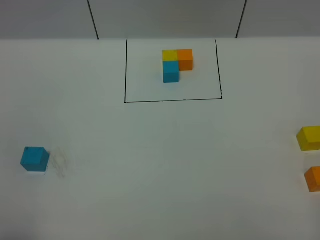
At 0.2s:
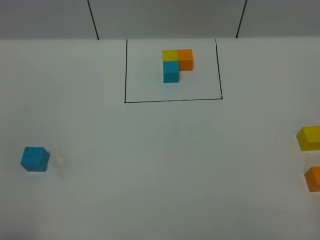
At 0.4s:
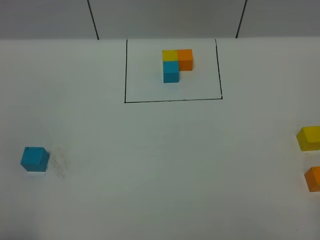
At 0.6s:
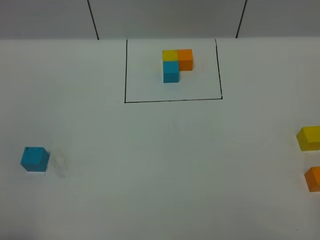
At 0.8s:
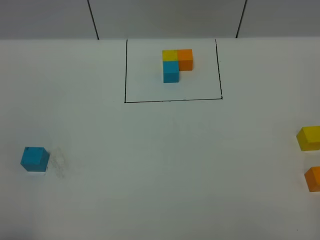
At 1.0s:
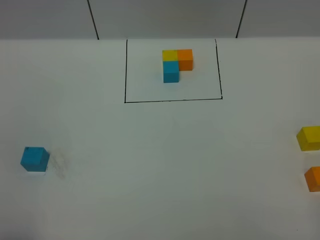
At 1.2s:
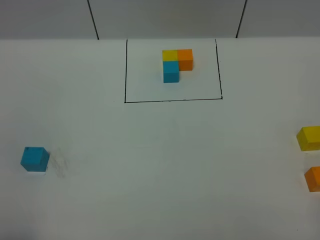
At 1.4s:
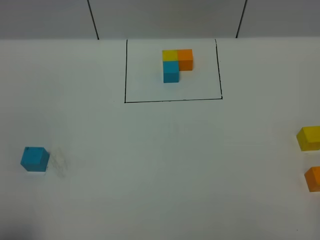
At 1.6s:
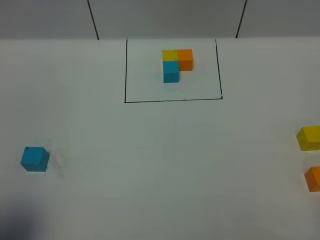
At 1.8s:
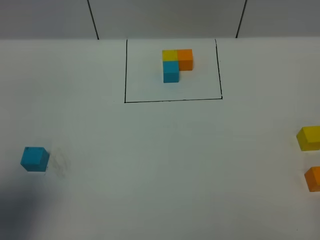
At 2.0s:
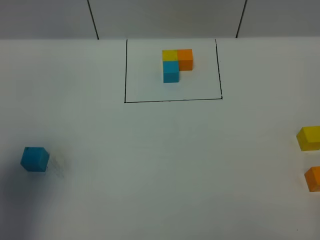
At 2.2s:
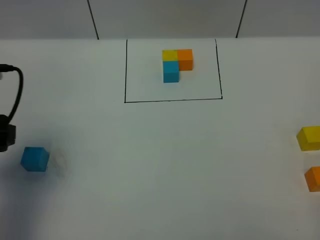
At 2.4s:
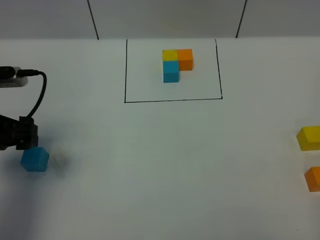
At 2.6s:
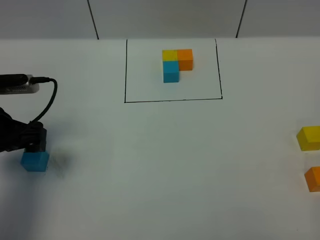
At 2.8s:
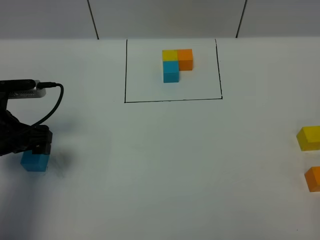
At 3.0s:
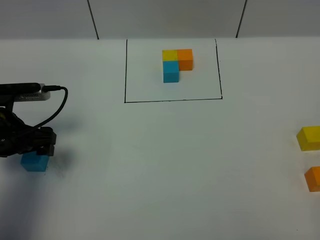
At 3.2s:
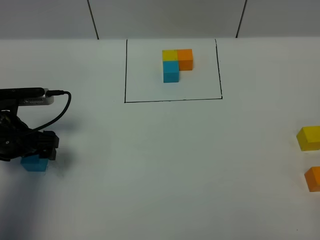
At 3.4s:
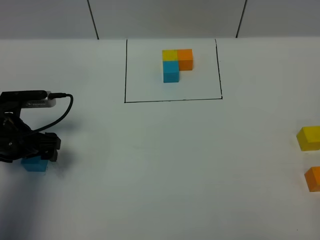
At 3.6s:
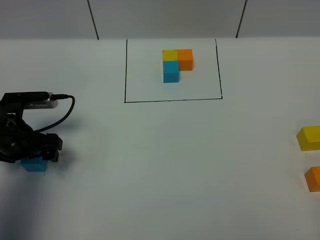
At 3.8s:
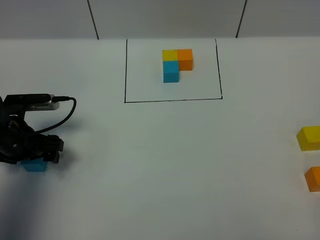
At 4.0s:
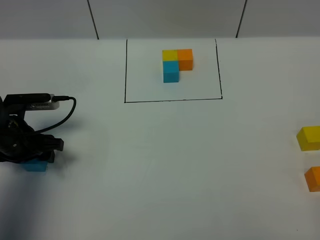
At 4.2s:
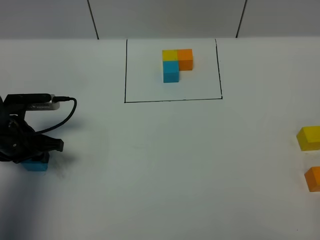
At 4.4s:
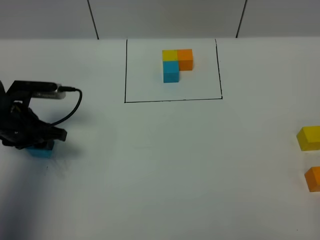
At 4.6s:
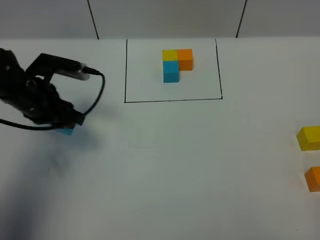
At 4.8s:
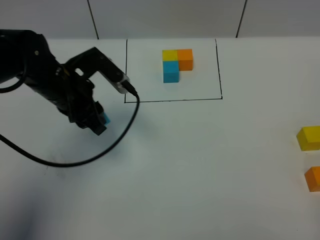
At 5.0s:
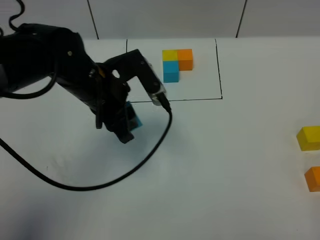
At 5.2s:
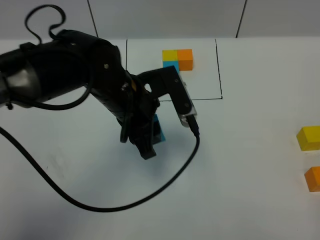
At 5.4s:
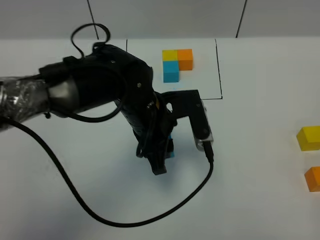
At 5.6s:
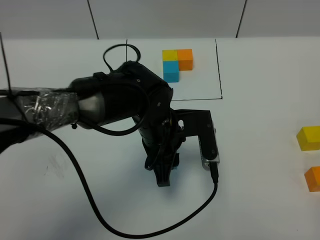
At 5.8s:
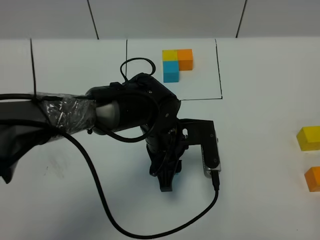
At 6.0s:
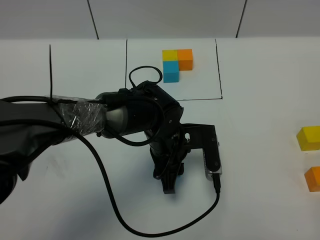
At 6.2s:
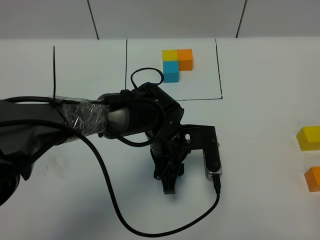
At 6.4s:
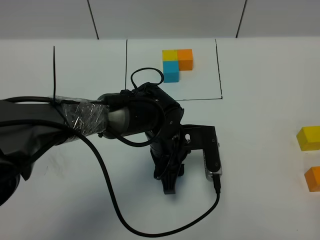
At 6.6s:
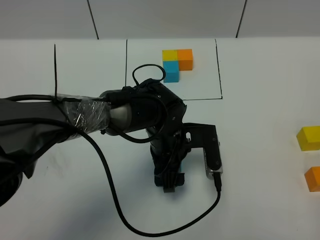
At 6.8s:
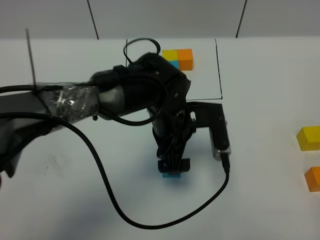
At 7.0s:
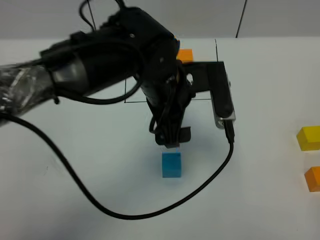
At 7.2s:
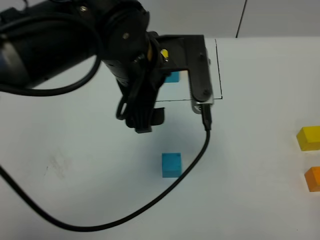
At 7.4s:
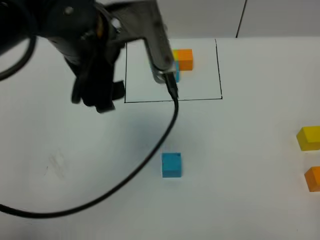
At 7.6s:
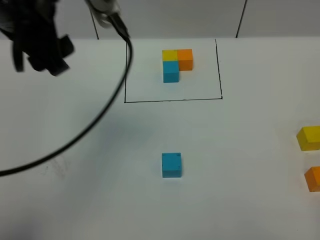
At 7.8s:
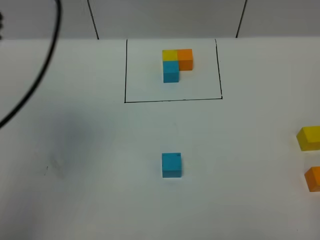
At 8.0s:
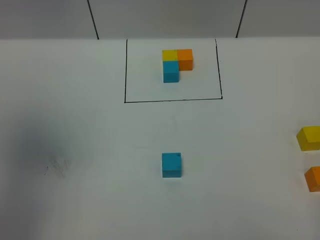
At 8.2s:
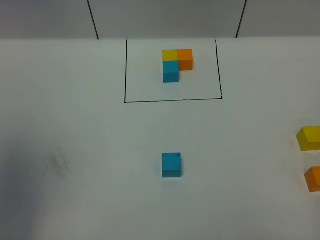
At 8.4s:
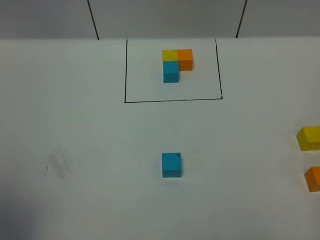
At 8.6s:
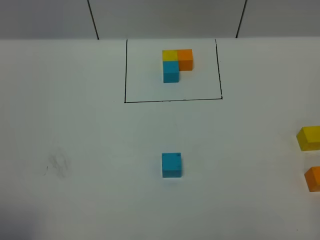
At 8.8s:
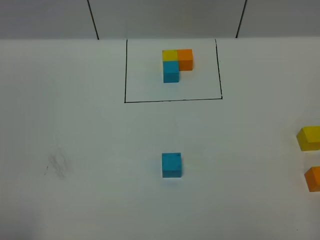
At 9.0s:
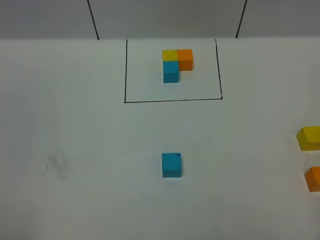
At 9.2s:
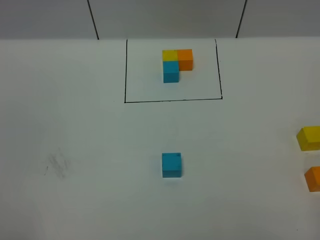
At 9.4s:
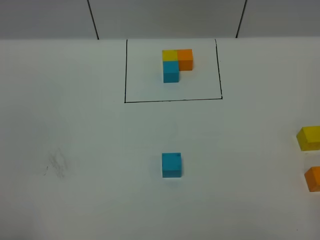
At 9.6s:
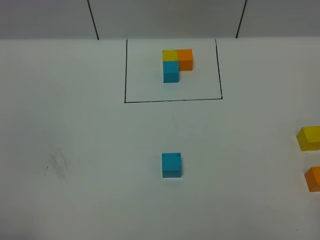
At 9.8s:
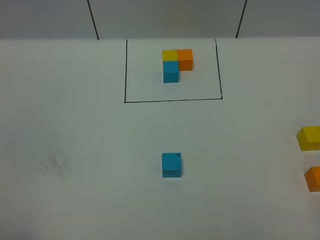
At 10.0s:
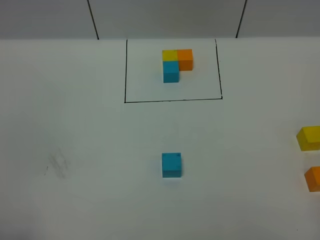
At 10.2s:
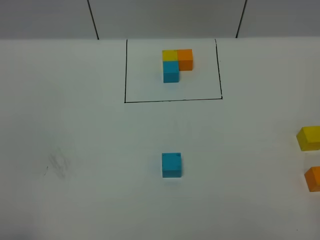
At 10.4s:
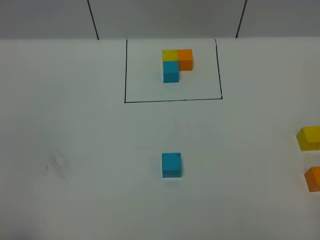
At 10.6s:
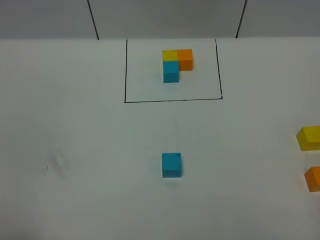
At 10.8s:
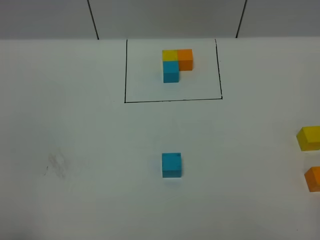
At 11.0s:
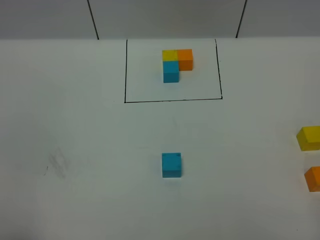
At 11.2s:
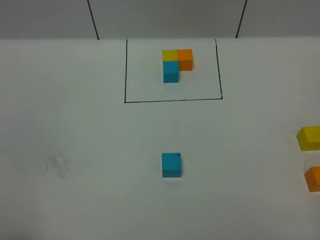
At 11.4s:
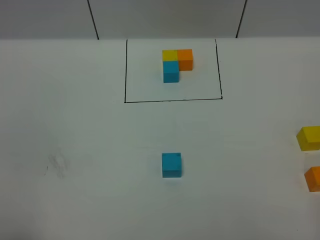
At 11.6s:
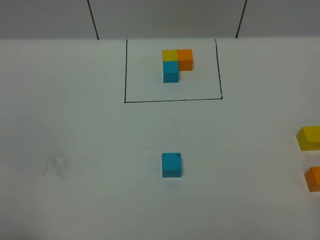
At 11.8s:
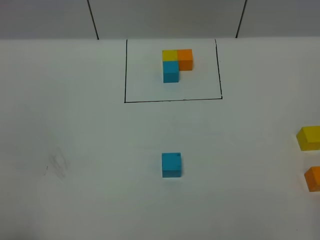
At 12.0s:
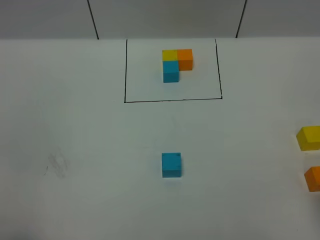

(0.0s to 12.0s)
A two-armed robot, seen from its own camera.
Task of the whole recording: According to the building block template in front, assemble the scattered blocks together.
Step, 2.2s - 7.2s: Put the blue cube in the center of the table.
0.0s - 1.6s: The left gripper goes roughly 5 cm forward.
1.6s - 3.0s: The left gripper shifts about 25 cm forward and downward.
3.0s - 4.4s: The left gripper closes.
4.4s - 6.0s: The left gripper heads to the right, covering some 25 cm.
6.0s - 7.6s: The left gripper moves upward and to the left, roughly 35 cm, and opens up.
7.6s - 9.0s: The left gripper heads backward and to the left, covering approximately 35 cm.

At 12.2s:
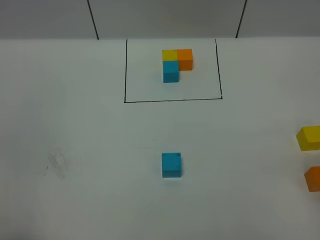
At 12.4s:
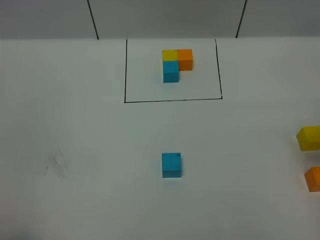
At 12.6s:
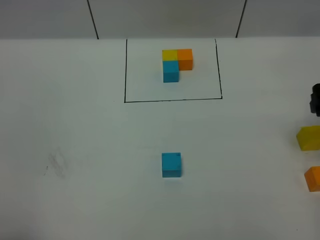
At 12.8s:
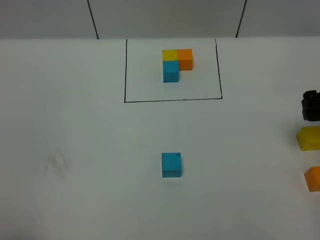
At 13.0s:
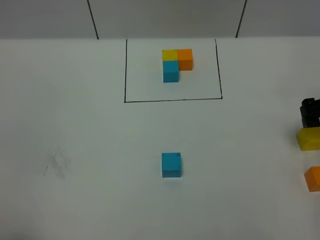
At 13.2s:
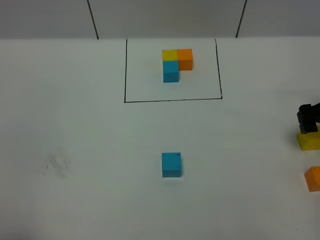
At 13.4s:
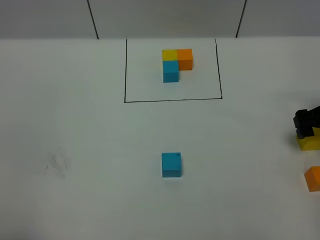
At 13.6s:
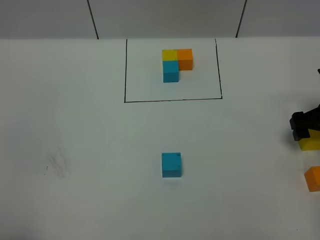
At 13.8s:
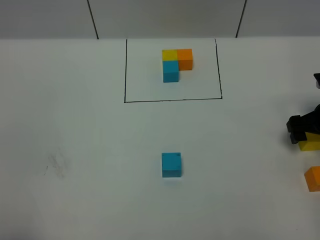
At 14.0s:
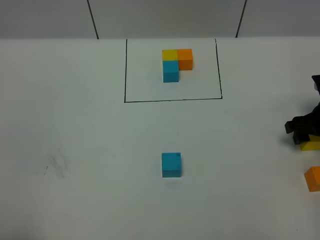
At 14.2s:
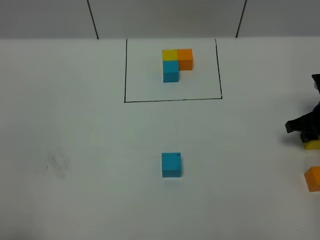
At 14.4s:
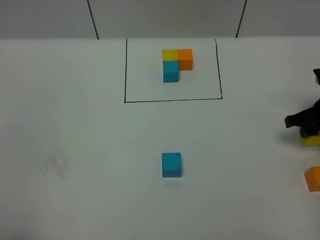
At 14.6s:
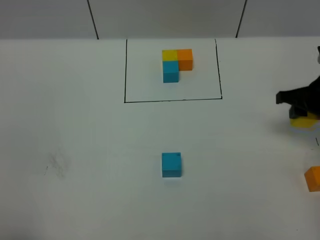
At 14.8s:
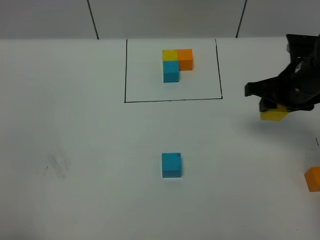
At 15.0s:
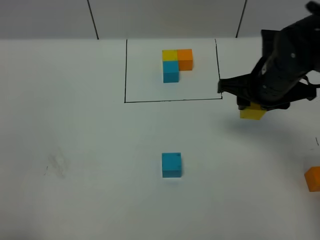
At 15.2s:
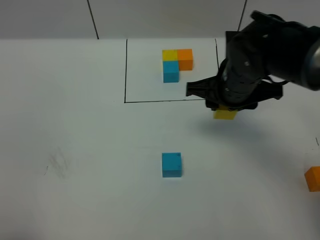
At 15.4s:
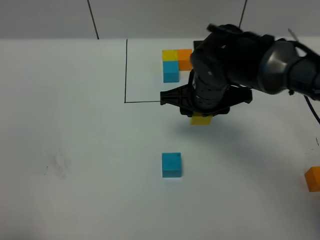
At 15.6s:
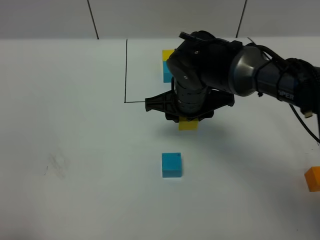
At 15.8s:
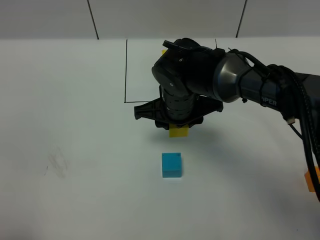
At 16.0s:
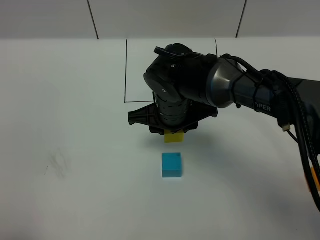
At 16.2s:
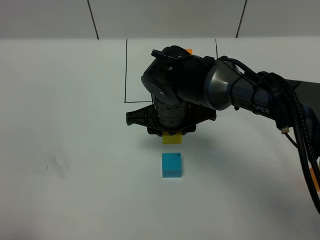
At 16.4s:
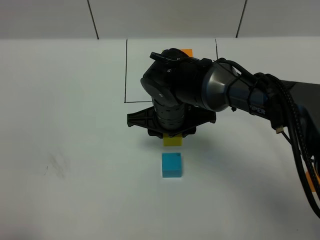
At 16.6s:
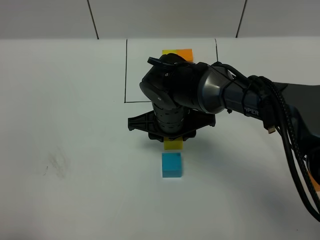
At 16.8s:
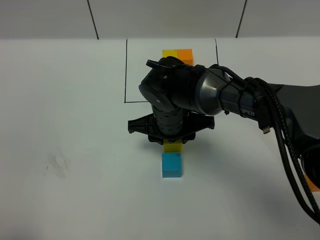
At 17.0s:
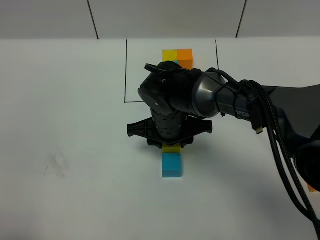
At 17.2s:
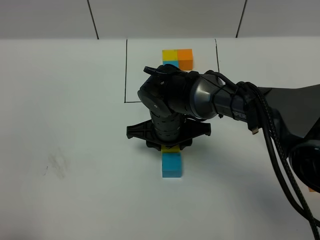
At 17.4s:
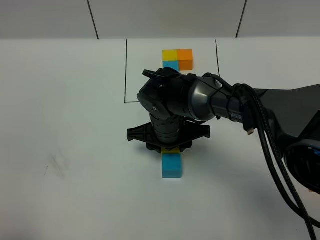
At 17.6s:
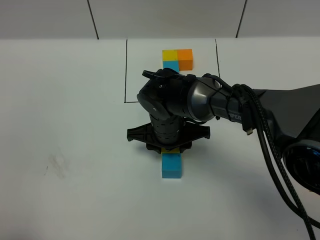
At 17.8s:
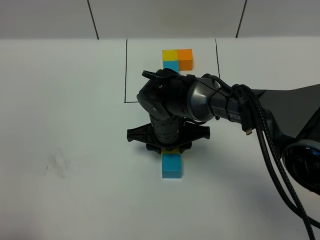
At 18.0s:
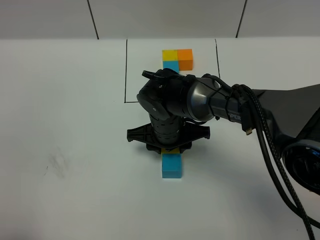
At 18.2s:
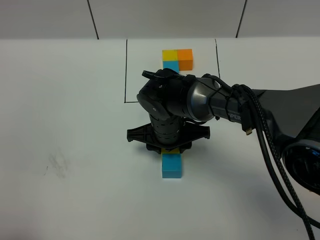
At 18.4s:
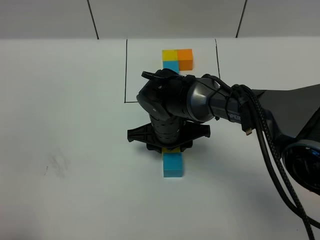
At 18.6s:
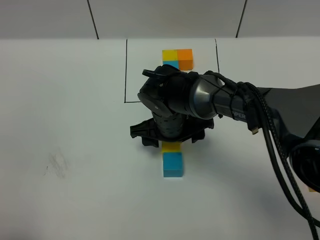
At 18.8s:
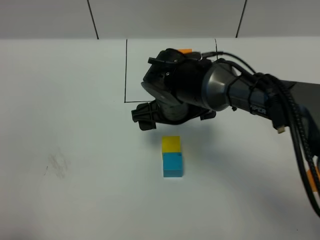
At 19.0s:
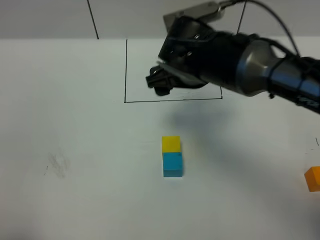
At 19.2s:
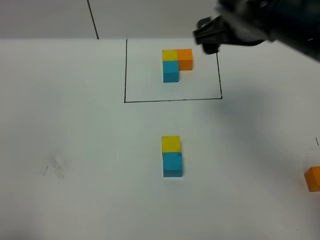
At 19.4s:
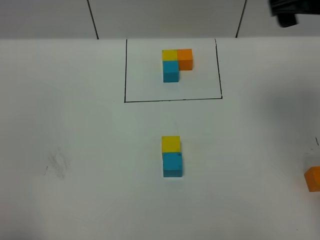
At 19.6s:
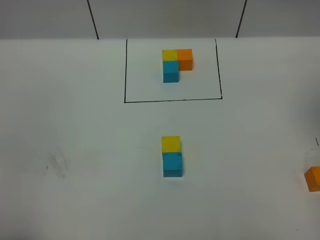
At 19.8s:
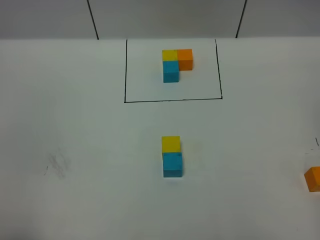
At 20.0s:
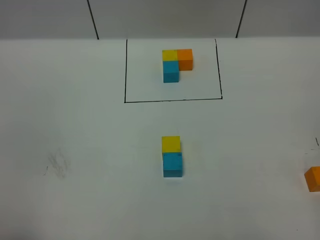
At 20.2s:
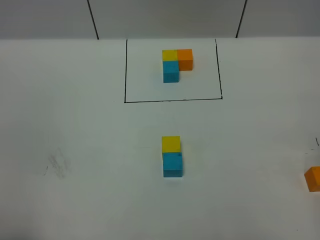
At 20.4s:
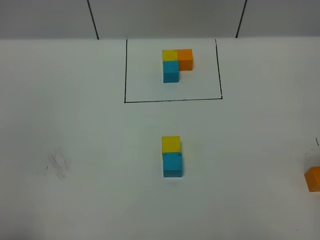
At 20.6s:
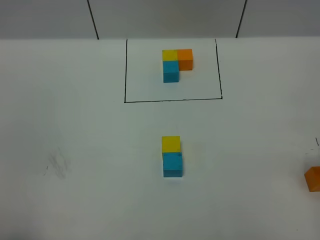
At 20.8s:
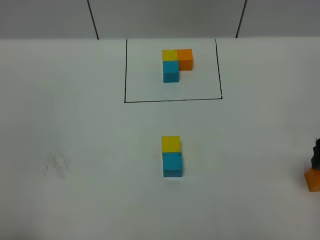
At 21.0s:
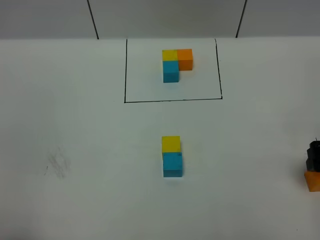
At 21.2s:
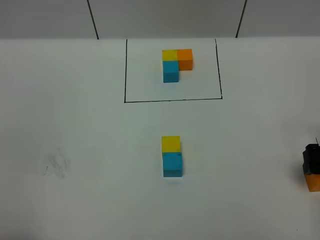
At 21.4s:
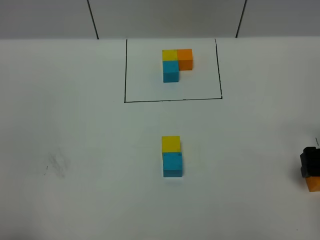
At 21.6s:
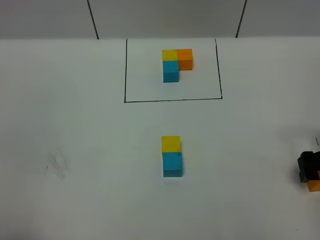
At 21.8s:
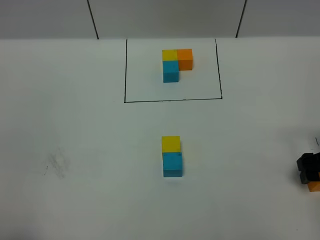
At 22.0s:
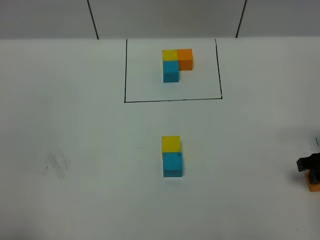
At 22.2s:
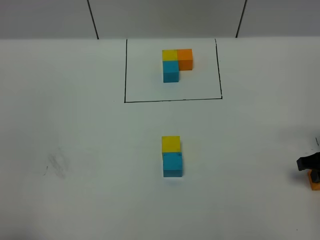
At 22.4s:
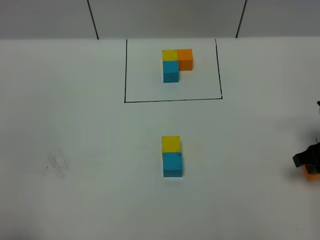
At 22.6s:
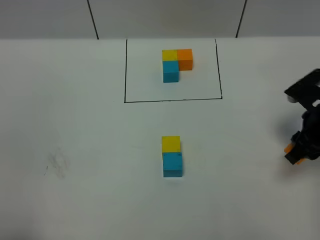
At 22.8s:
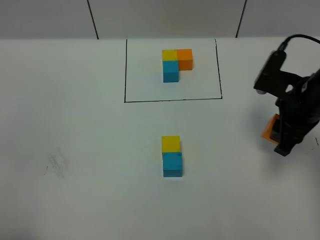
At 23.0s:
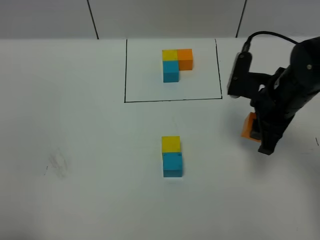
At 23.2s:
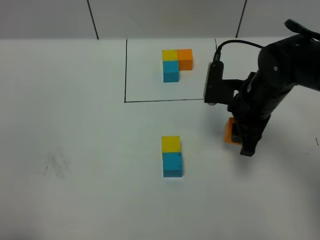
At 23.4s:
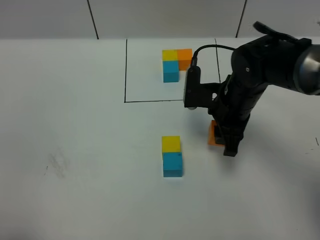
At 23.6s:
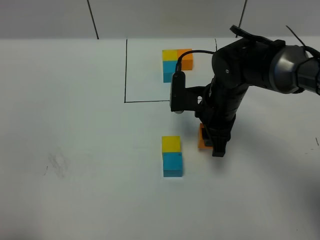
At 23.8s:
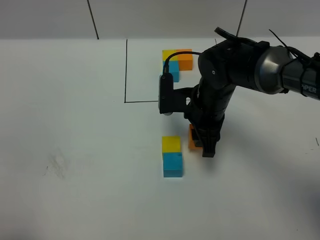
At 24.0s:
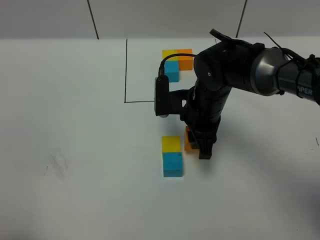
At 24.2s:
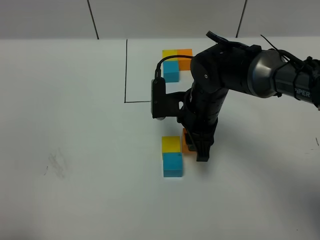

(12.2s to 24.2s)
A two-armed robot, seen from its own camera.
Task of the whole recording: According to the building block template in front, assemble the scattered blocks together.
Step, 12.2s - 19.0s: Put the yellow cube in the front of the blue cube.
12.2s - 13.8s: The right gripper shifts roughly 25 cm downward and forward.
13.8s - 15.2s: The right gripper is displaced to the left and upward by approximately 25 cm, and closes up.
15.2s - 16.6s: The right gripper shifts about 10 cm to the left and downward.
16.6s - 18.2s: The grippers make only small movements.
18.2s - 19.8s: The right gripper moves upward and to the right, approximately 50 cm, and opens its fingers.
19.8s - 21.2s: The right gripper moves downward, approximately 30 cm.
21.2s - 22.6s: The right gripper goes about 5 cm to the left, and closes its fingers.
22.6s - 24.2s: The right gripper travels to the left by about 20 cm.
